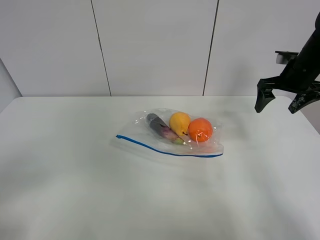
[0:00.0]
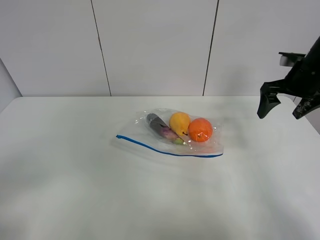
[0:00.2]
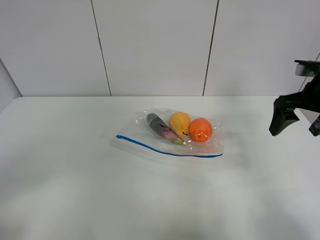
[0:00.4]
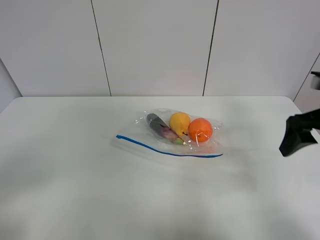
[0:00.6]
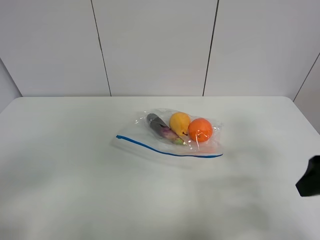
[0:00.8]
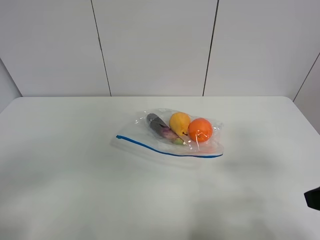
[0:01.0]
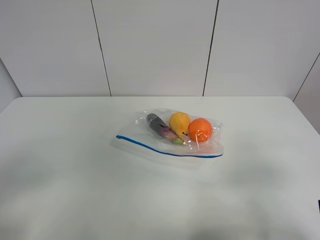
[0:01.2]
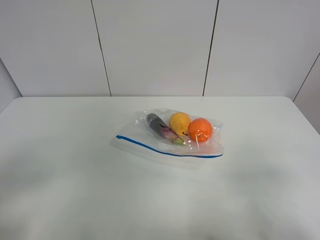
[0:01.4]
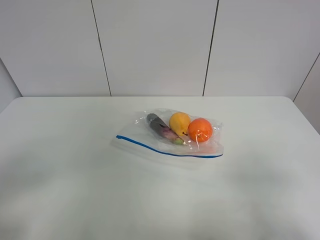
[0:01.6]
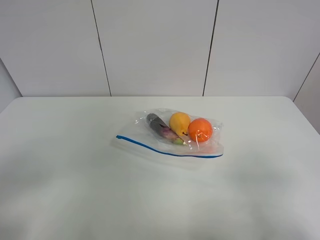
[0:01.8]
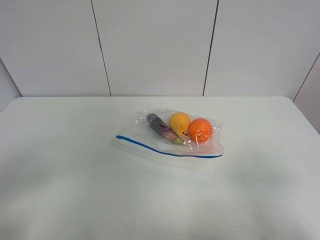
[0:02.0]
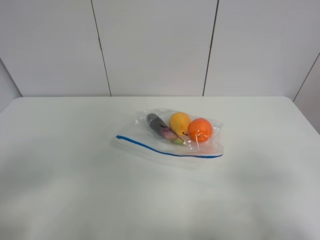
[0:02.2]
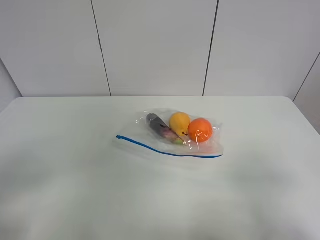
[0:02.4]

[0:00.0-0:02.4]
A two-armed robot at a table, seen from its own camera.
0:00.0 to 0:01.2: The right gripper is displaced backward by approximately 35 cm.

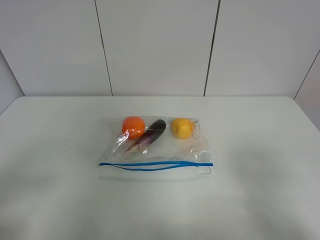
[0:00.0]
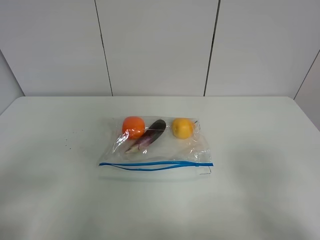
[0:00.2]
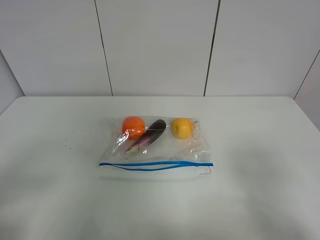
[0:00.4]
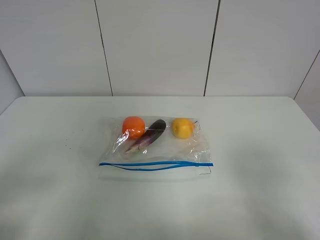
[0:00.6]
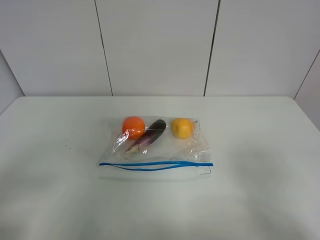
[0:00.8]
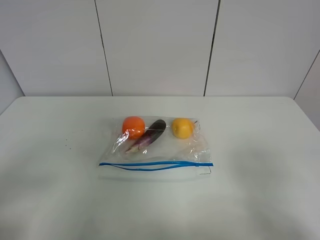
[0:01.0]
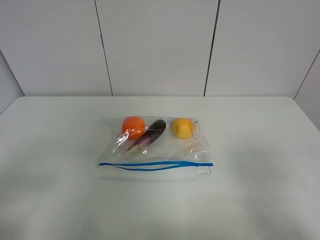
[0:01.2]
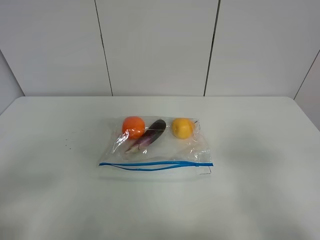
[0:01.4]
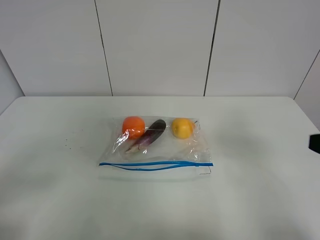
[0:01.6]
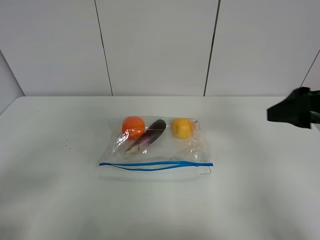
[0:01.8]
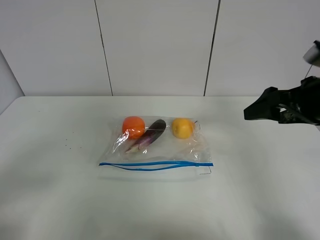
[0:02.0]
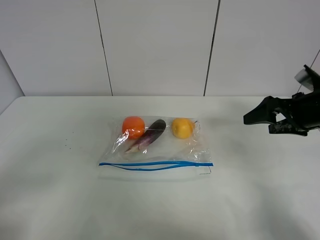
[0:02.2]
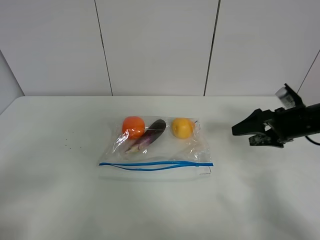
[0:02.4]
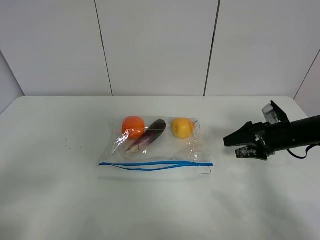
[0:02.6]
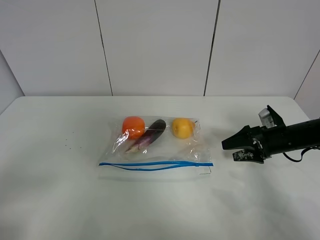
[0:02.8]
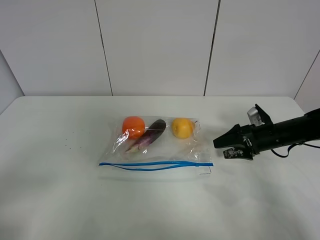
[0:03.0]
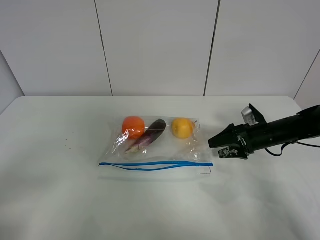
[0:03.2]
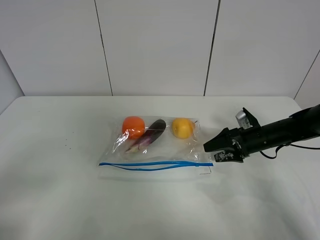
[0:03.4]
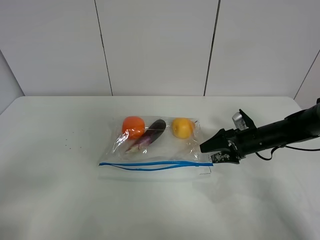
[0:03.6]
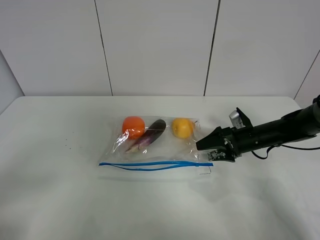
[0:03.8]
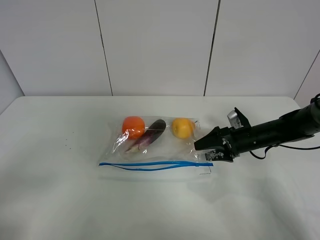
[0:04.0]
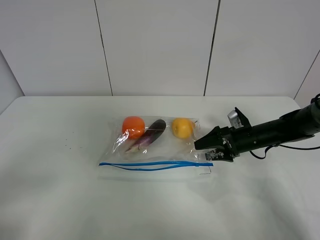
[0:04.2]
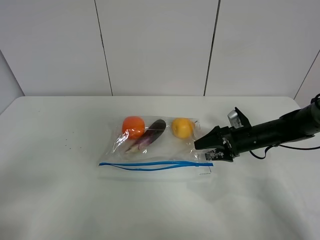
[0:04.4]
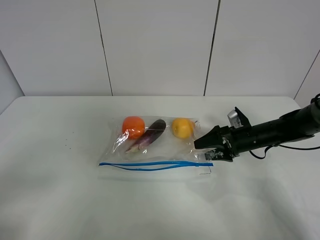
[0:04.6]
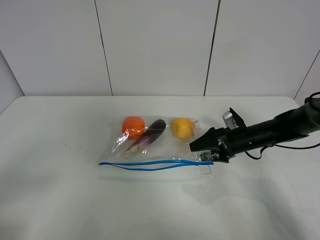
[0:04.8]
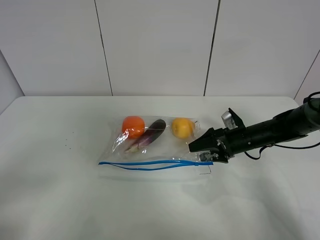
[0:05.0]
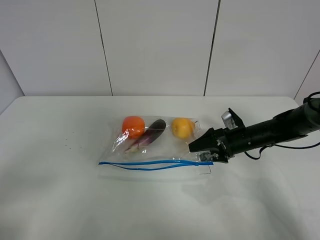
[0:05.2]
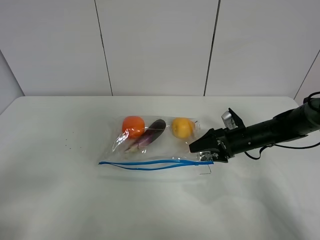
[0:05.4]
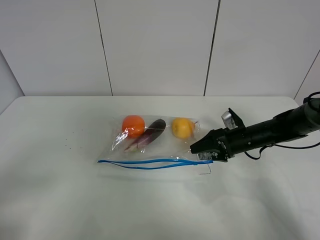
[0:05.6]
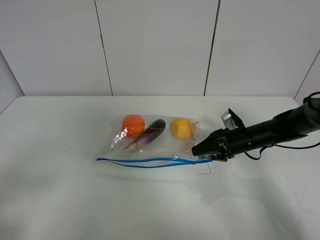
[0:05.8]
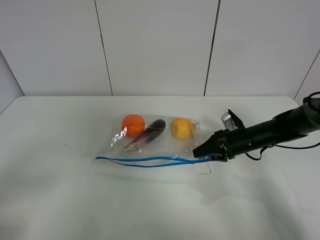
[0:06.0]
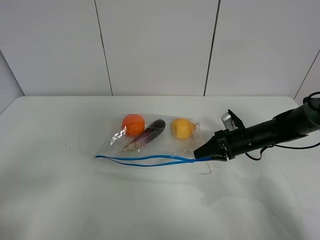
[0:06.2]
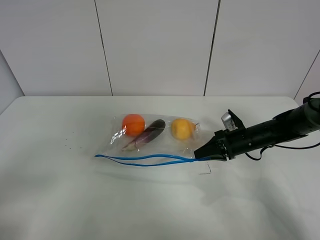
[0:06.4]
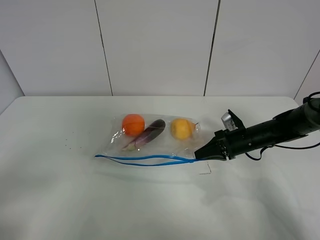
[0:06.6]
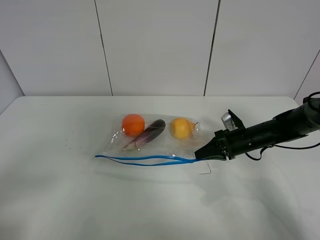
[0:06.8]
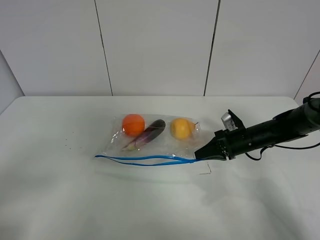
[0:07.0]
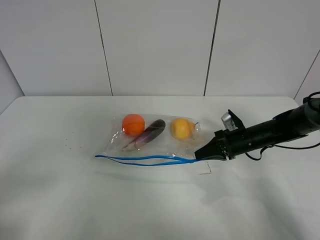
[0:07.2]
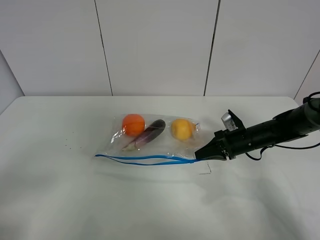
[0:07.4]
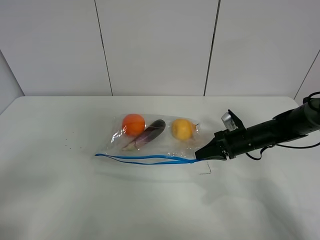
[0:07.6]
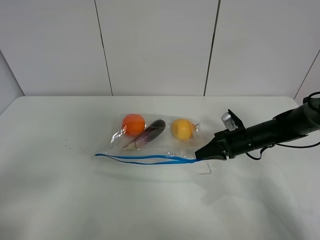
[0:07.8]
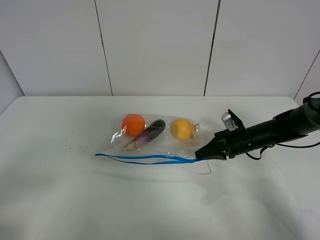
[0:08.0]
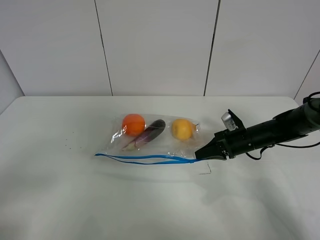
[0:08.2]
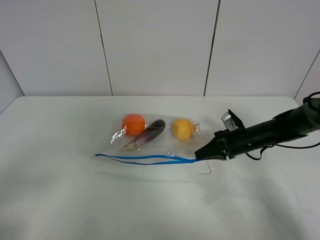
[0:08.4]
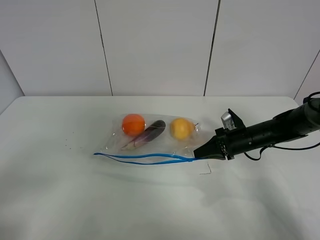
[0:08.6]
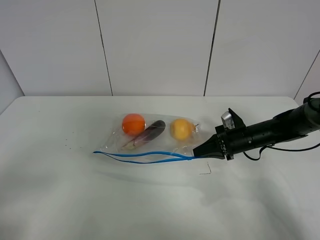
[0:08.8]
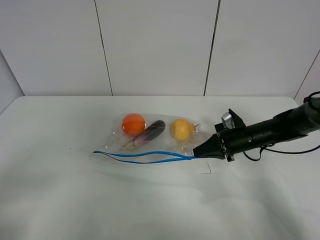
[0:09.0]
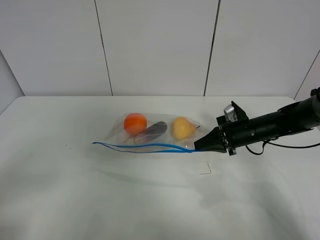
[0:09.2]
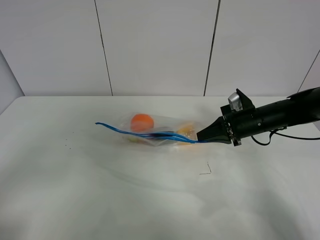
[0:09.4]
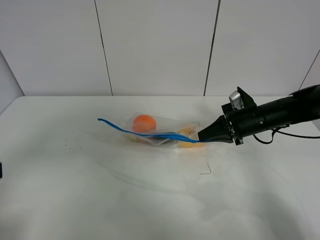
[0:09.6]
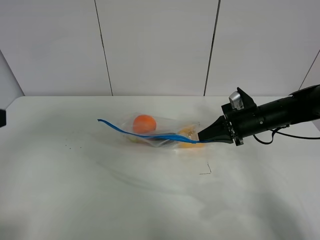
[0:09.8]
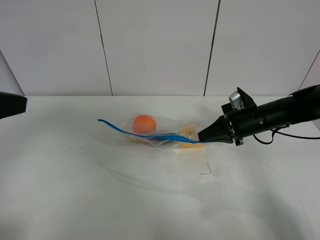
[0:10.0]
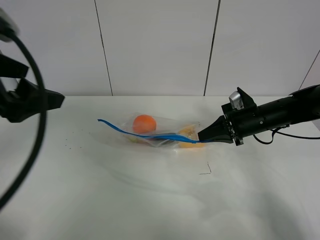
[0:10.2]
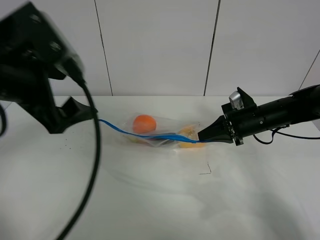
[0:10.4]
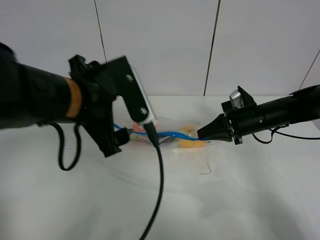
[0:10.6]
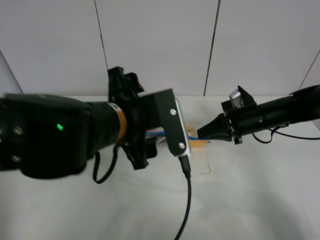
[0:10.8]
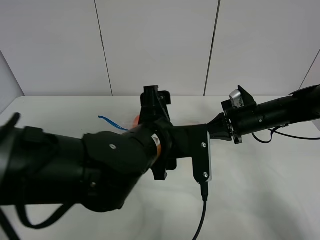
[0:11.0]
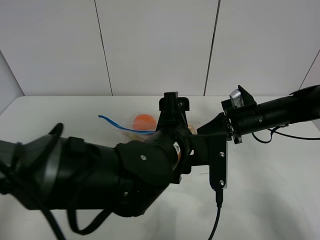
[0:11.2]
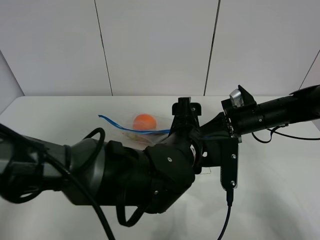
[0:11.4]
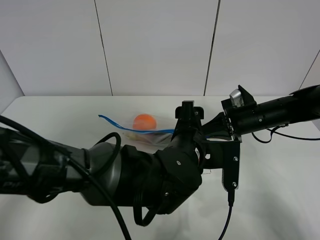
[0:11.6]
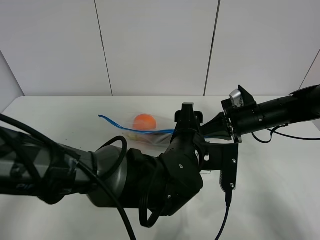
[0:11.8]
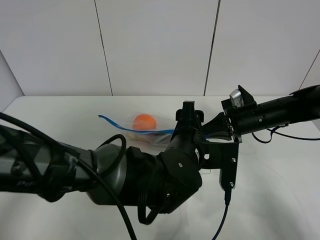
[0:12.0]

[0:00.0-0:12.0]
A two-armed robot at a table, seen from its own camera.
Step, 0:00.0 to 0:06.6: Grasp the fruit bag with right gripper.
Step, 0:06.8 to 0:09.4: Lift the fruit bag with your right gripper.
0:00.0 to 0:01.6: The right gripper heads forward, covering roughly 10 cm.
0:01.6 to 0:03.0: The right gripper travels forward and downward by roughly 30 cm.
0:03.0 to 0:04.4: There are only small adjustments of the grippers.
0:04.4 to 0:06.0: The right gripper closes its fingers.
0:06.0 to 0:07.6: The right gripper closes up.
0:07.6 to 0:09.0: The grippers move only a little.
0:09.0 to 0:10.4: The right gripper goes some 5 cm upward, while the left gripper shifts roughly 25 cm forward and to the right.
0:10.4 to 0:12.0: The left gripper travels to the right and downward by roughly 30 cm.

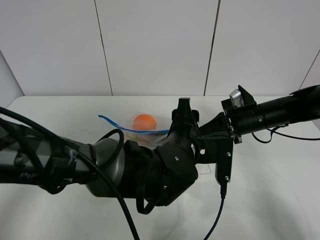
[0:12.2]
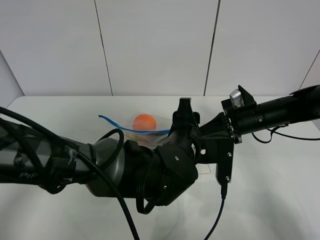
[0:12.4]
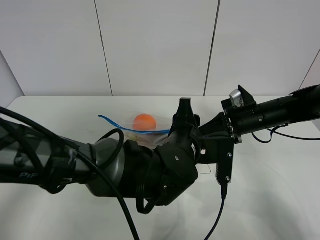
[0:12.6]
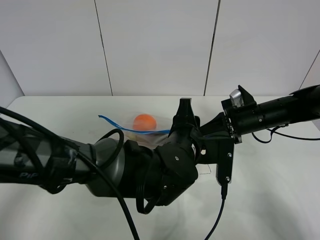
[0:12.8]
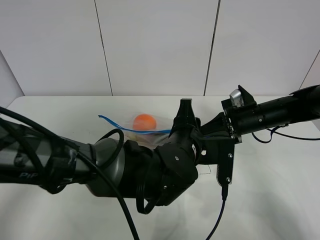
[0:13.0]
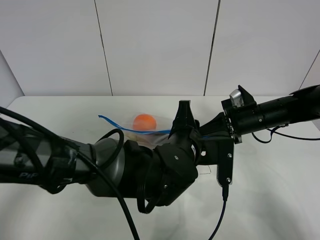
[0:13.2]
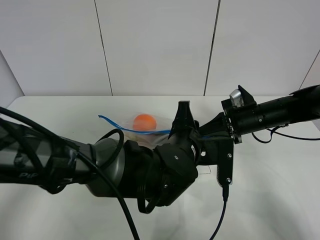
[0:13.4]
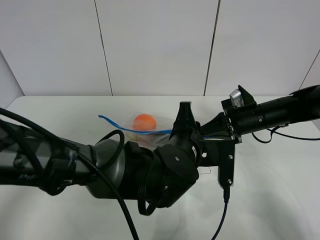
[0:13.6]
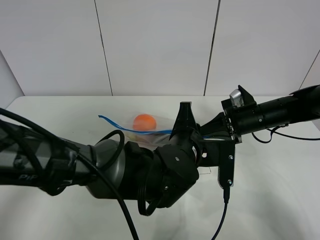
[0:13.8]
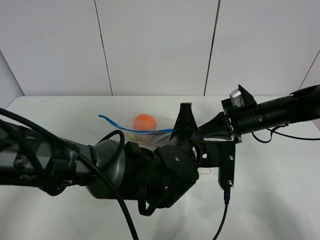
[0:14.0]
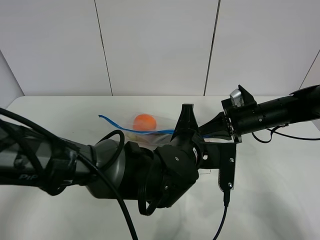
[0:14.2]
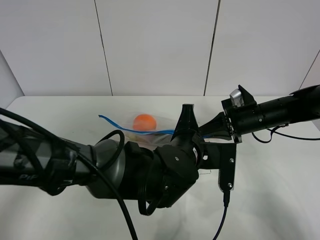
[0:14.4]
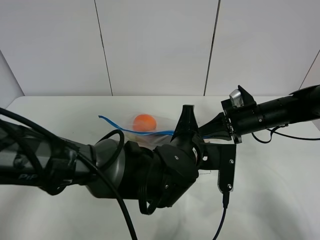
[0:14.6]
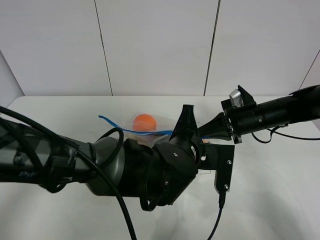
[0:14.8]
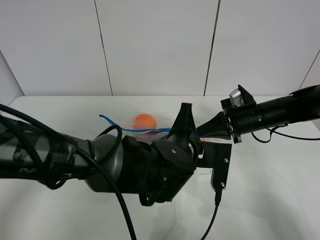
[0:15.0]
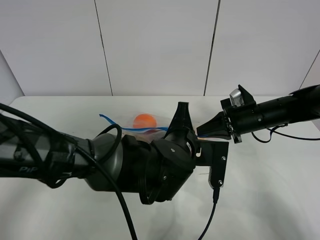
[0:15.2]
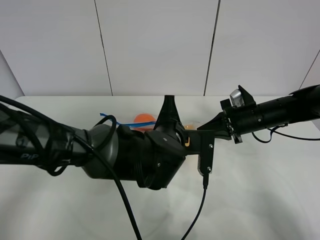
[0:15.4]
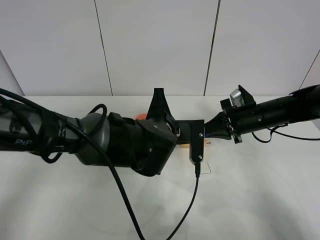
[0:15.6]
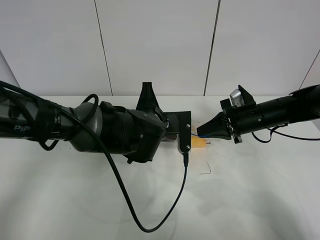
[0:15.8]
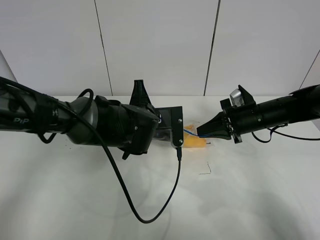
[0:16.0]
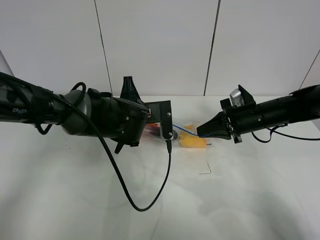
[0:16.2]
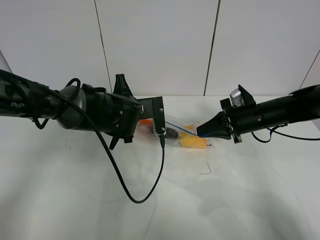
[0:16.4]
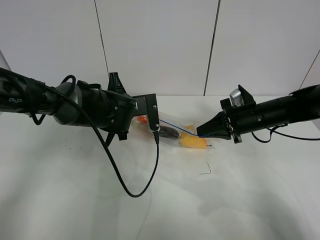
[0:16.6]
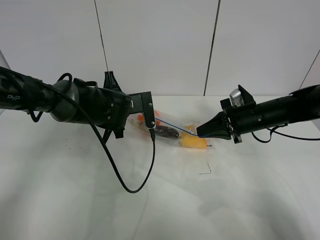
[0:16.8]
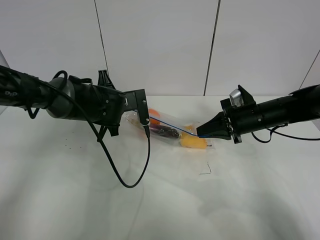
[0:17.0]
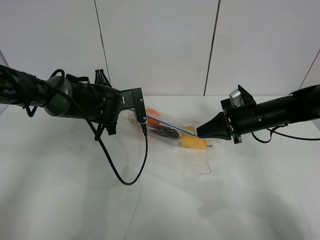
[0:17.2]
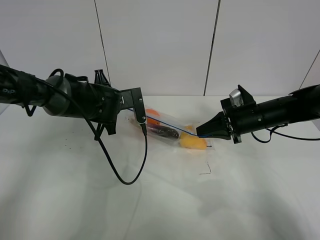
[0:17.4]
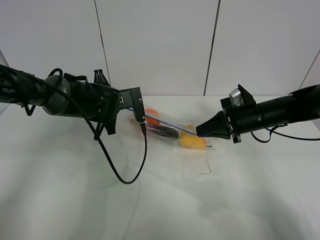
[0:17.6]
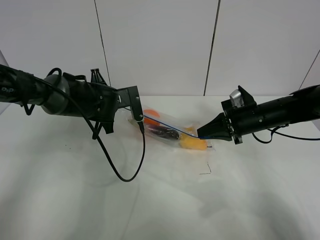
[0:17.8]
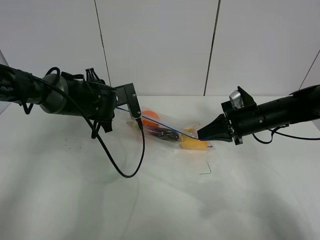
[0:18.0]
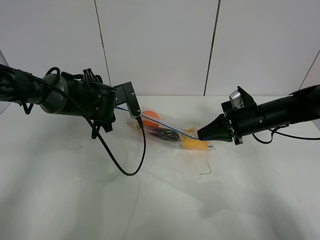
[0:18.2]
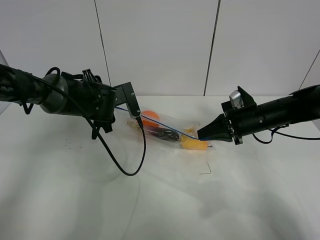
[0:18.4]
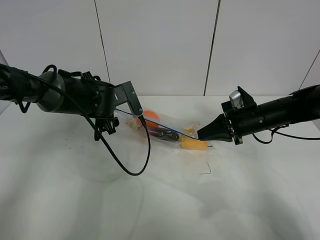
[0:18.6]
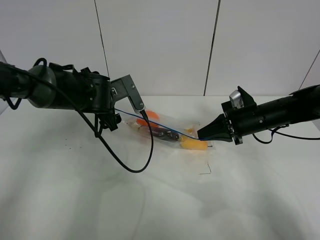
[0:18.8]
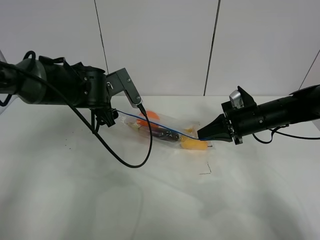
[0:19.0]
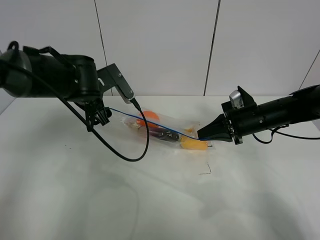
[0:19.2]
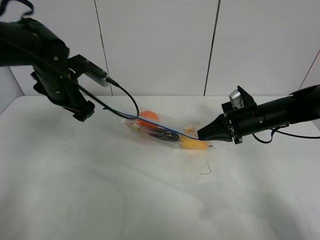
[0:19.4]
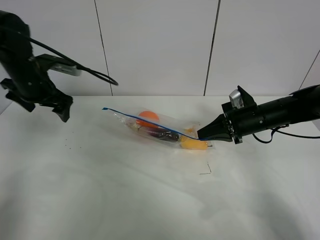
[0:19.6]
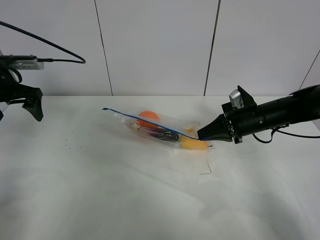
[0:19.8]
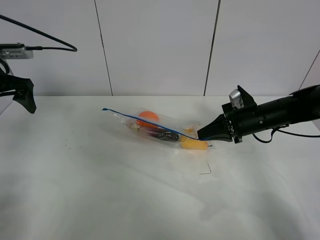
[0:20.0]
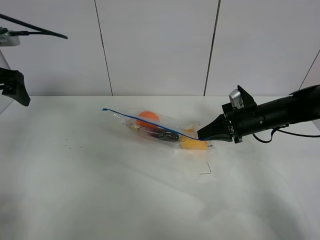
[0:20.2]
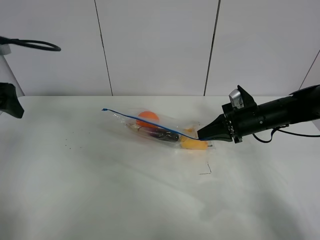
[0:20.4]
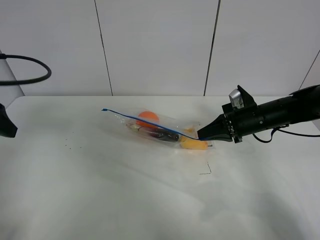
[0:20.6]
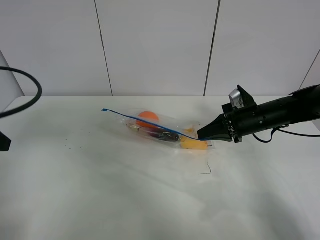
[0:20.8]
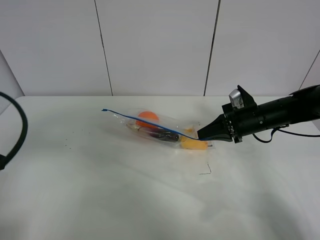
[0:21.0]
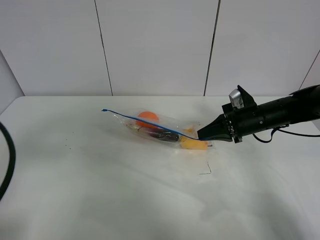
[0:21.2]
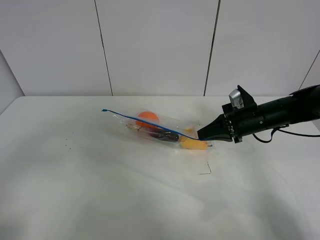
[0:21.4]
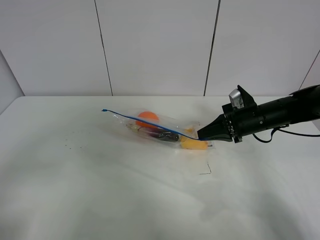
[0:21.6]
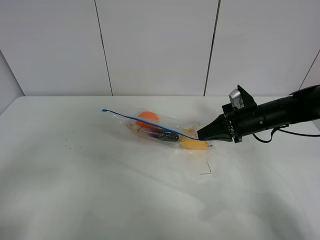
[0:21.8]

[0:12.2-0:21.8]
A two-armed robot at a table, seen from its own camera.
Step, 0:12.2 to 0:18.0: Pull the fruit bag with left gripper.
0:12.2 to 0:13.8: The left gripper closes.
0:13.8 to 0:15.4: There are only small adjustments of the grippers.
0:15.4 to 0:17.0: The left gripper shifts approximately 15 cm to the left and forward.
0:17.0 to 0:18.6: The left gripper opens up.
0:18.6 to 0:20.2: The left gripper is displaced to the left and upward by some 25 cm.
0:20.2 to 0:21.8: The left gripper travels backward by some 30 cm.
